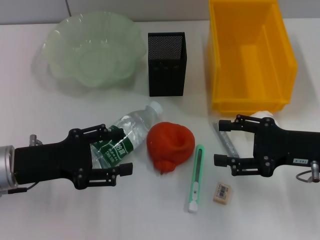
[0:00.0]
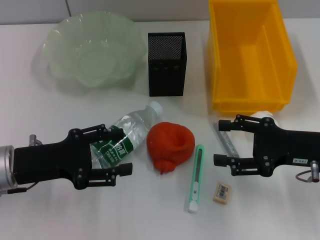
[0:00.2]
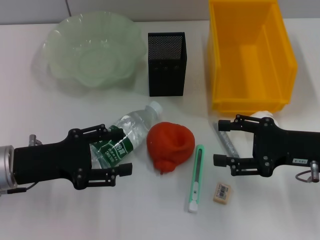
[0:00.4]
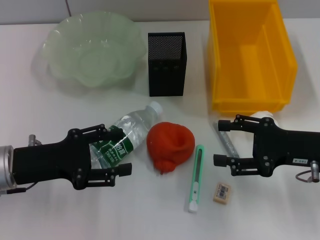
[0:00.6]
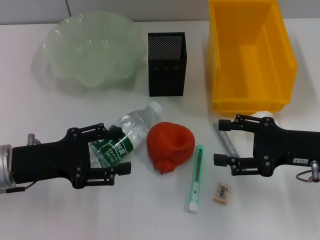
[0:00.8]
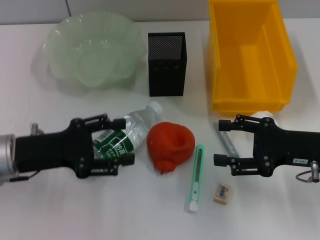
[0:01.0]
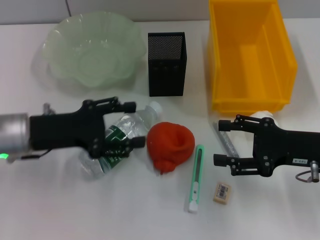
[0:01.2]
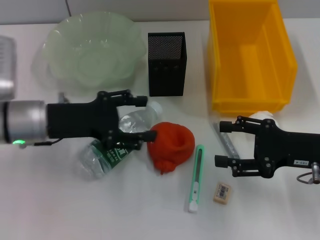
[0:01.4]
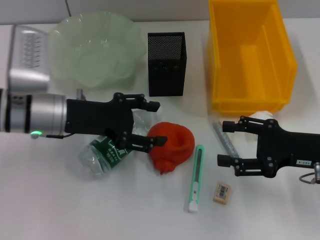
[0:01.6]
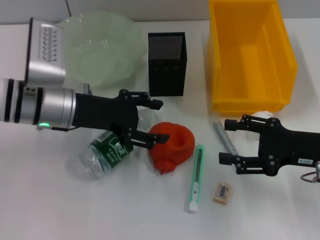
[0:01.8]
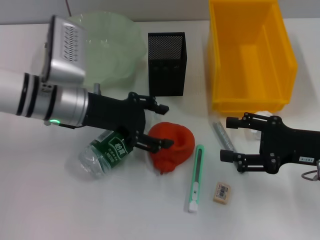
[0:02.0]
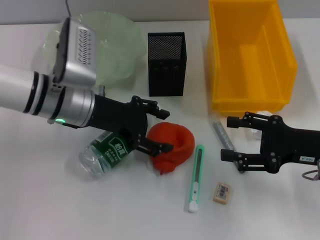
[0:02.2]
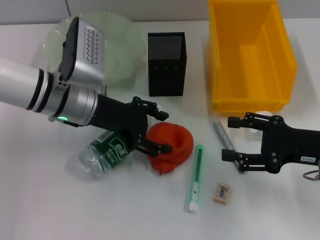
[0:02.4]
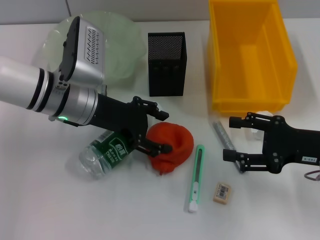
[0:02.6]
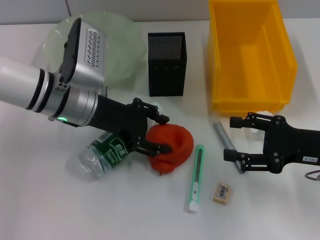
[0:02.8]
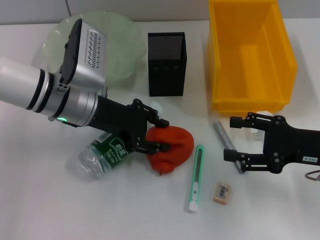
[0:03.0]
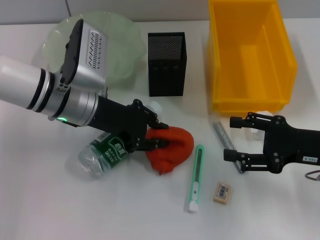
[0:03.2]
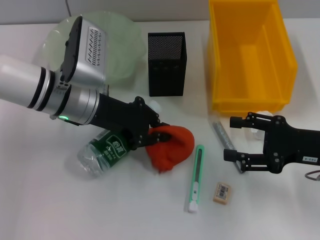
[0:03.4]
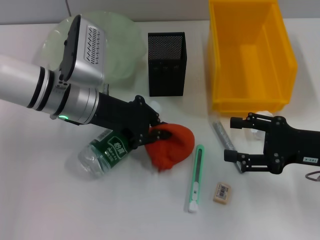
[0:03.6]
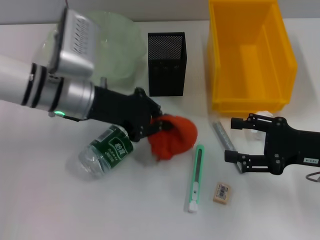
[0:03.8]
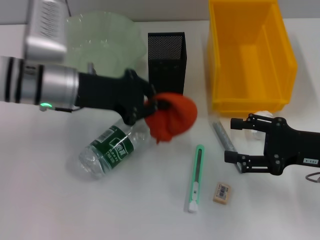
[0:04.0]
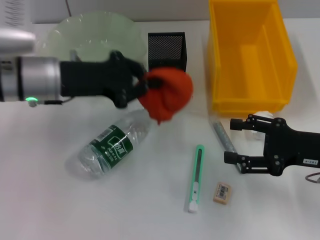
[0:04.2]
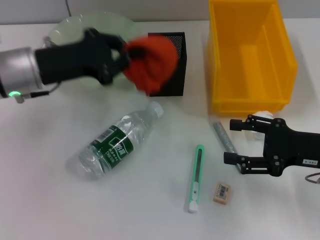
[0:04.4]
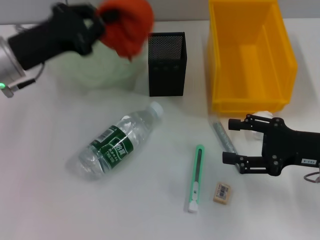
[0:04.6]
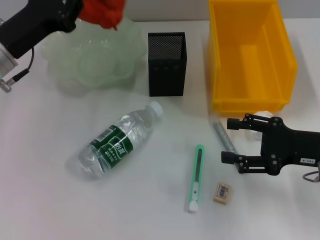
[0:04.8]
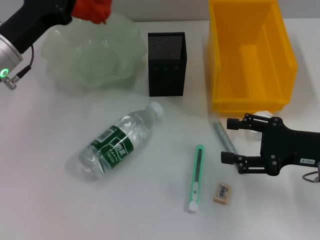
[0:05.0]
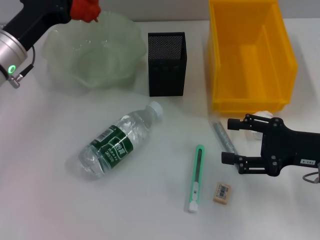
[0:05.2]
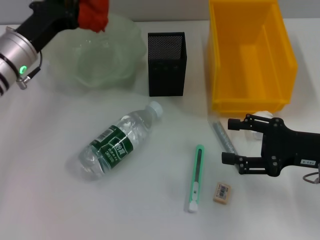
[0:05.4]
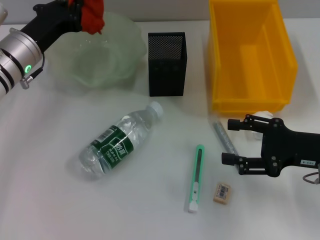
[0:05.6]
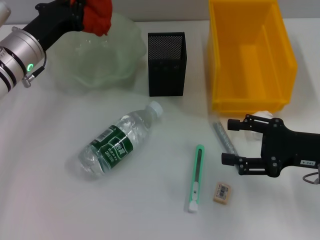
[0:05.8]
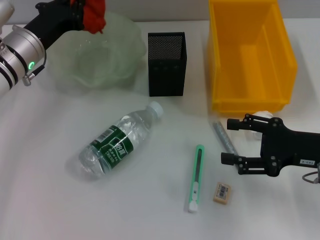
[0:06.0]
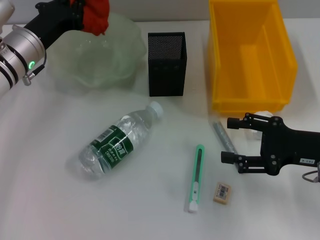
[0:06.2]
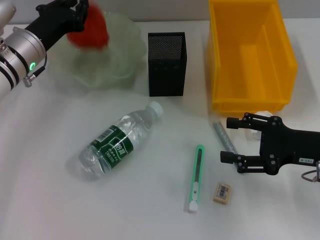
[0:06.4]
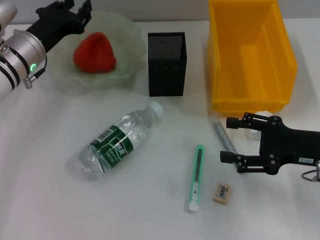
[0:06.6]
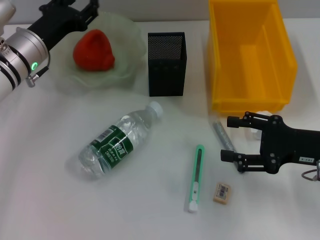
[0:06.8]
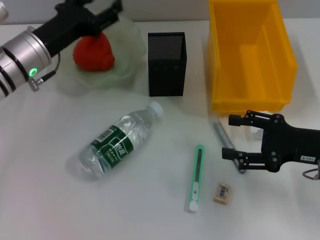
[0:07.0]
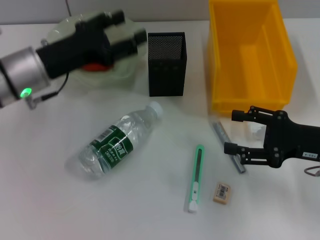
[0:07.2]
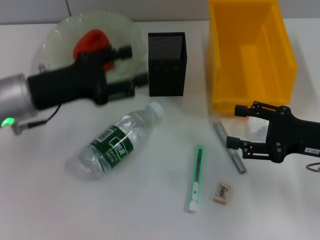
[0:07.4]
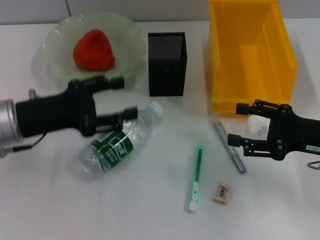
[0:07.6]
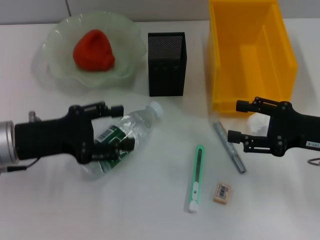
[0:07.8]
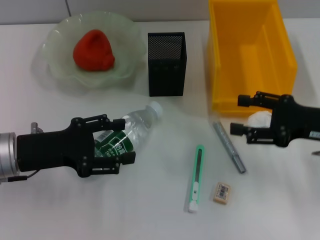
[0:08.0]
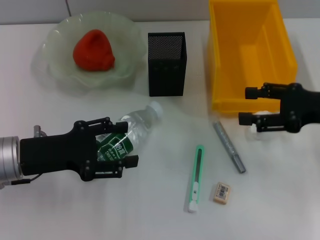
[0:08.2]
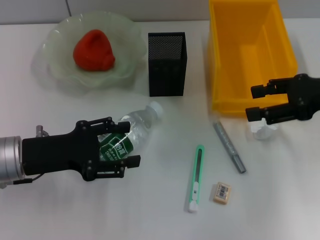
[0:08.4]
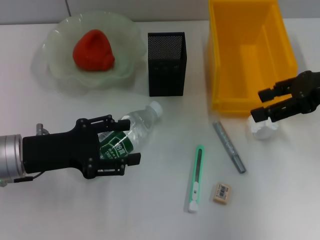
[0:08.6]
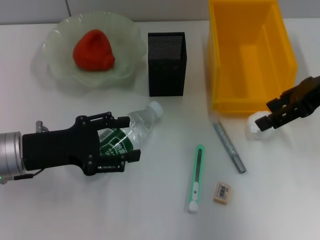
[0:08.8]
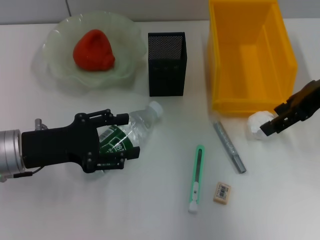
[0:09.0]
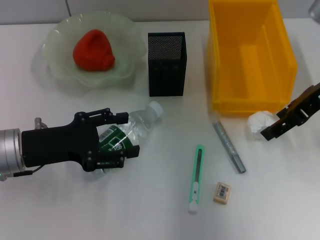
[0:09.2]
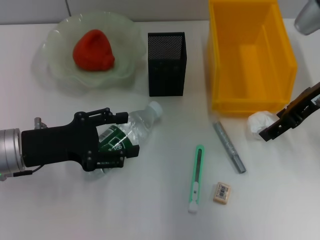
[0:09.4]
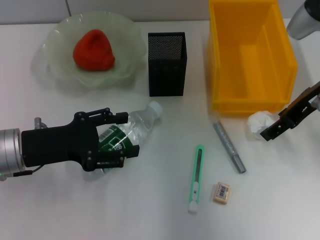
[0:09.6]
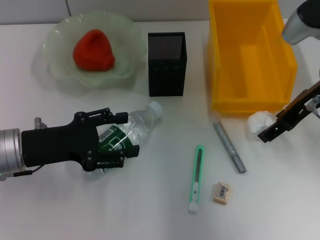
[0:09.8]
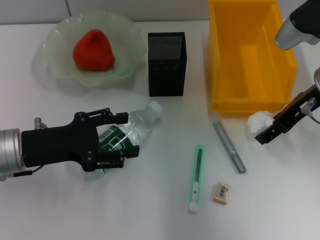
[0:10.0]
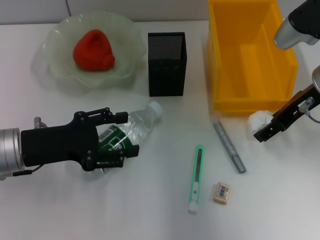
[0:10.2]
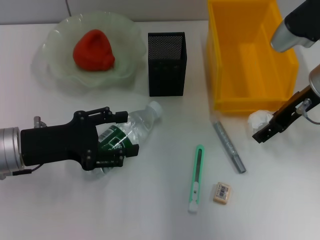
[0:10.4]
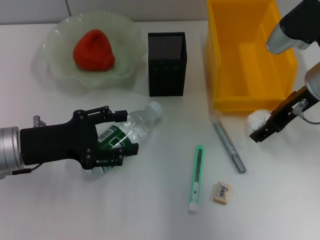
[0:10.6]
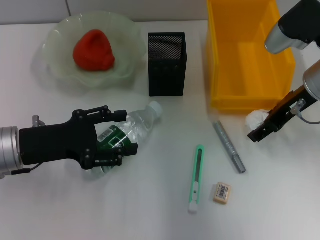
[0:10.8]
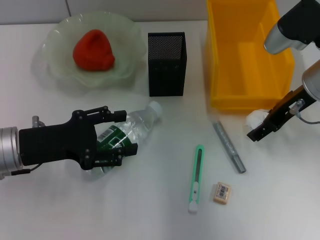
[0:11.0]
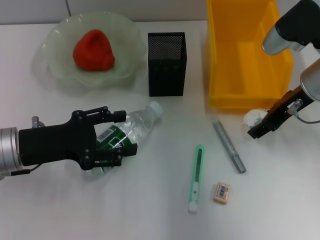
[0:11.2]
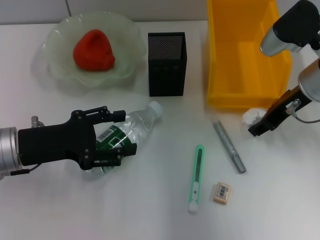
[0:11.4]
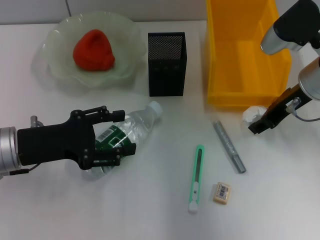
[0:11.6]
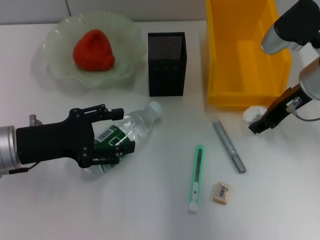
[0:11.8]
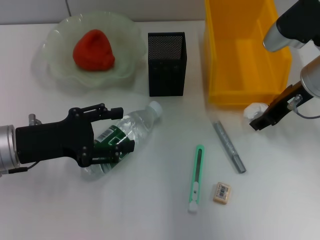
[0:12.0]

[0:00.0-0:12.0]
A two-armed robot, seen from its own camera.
Step, 0:00.0 to 0:03.6: Grab the orange with the left hand.
Step, 0:03.8 to 0:06.6: Place the orange into the fruit bowl with the left hand.
Step, 0:06.8 to 0:11.6: Grab the paper ball with the right hand.
0:00.0 to 0:01.6: The left gripper is displaced forward and to the right by about 10 cm.
0:01.6 to 0:03.0: The left gripper moves roughly 5 cm.
0:03.0 to 0:04.4: The left gripper goes some 5 cm to the left, and closes.
0:04.4 to 0:06.0: The left gripper is displaced forward by roughly 5 cm.
0:06.0 to 0:07.6: The left gripper travels backward by about 10 cm, and opens its fingers.
0:07.6 to 0:09.0: The right gripper heads upward and forward, covering roughly 15 cm.
0:09.0 to 0:10.4: The right gripper shifts by about 5 cm.
0:10.4 to 0:12.0: The right gripper closes up.

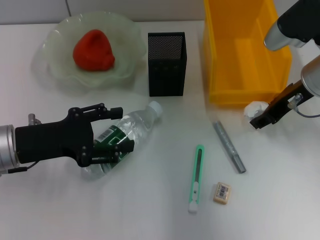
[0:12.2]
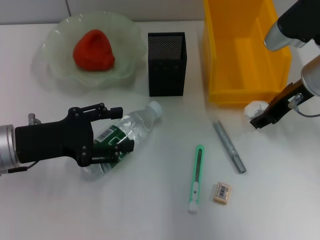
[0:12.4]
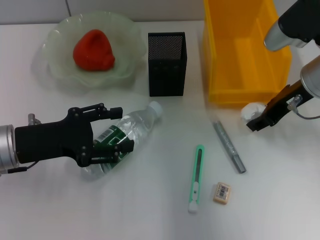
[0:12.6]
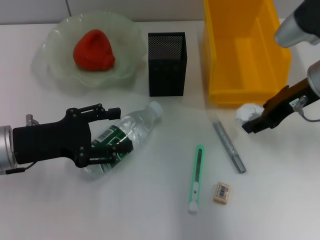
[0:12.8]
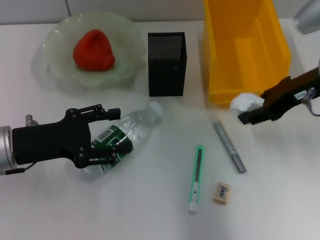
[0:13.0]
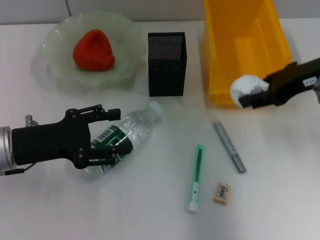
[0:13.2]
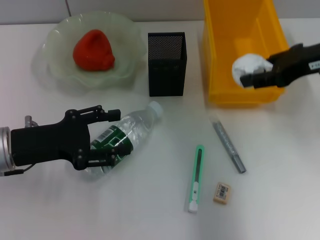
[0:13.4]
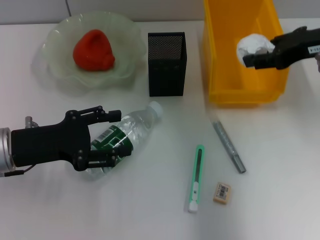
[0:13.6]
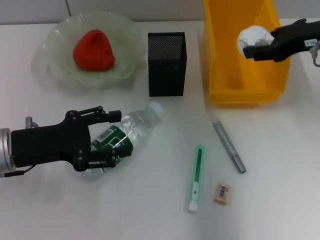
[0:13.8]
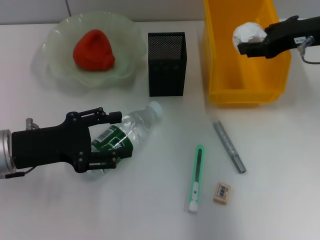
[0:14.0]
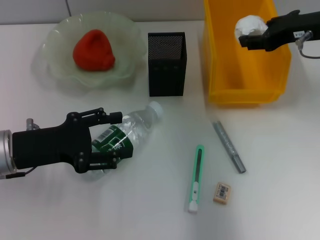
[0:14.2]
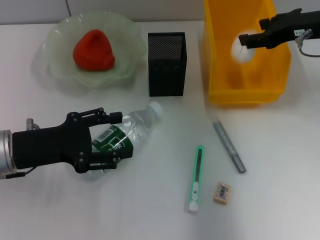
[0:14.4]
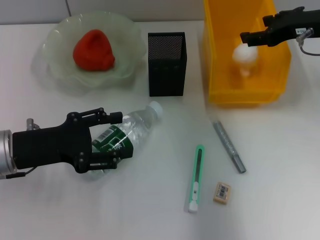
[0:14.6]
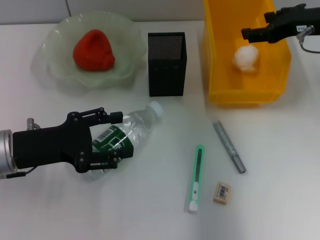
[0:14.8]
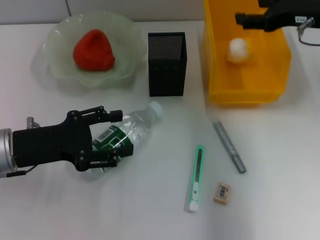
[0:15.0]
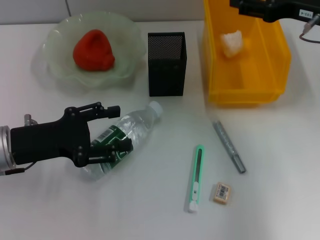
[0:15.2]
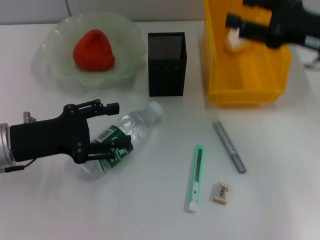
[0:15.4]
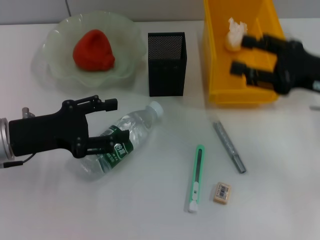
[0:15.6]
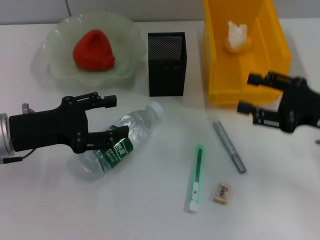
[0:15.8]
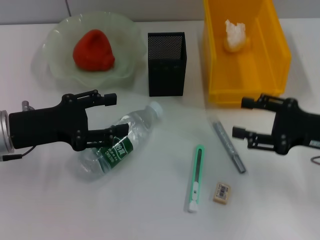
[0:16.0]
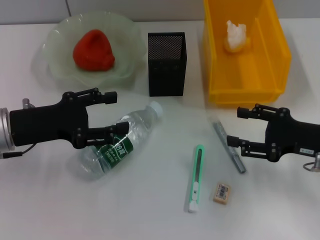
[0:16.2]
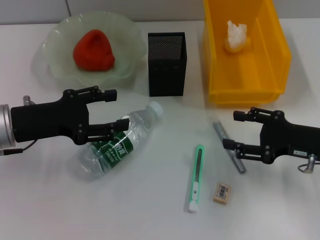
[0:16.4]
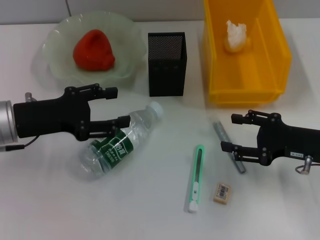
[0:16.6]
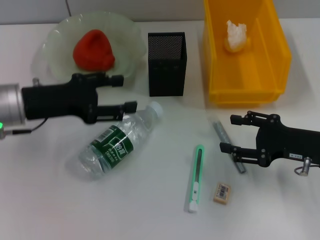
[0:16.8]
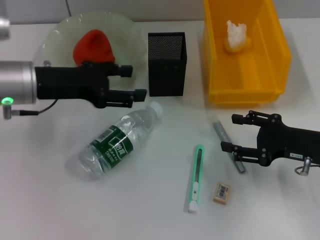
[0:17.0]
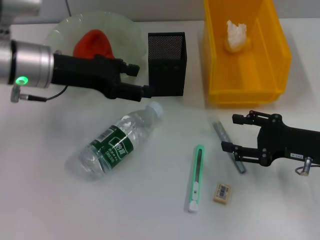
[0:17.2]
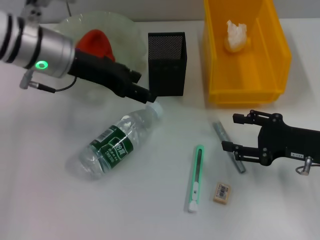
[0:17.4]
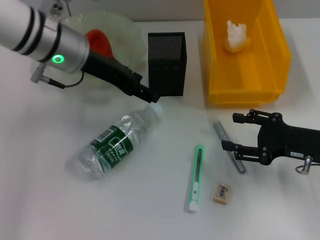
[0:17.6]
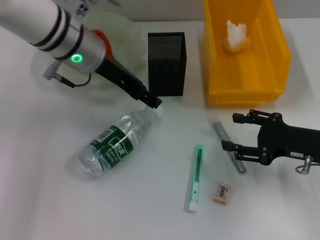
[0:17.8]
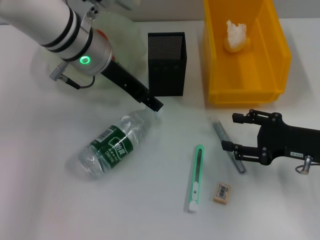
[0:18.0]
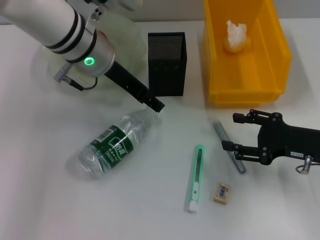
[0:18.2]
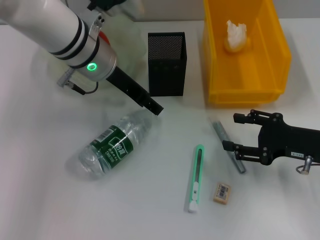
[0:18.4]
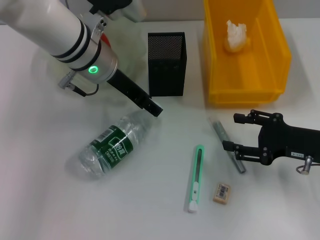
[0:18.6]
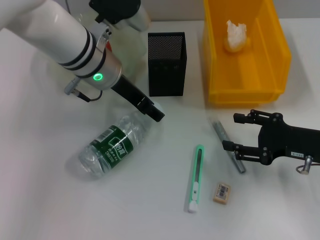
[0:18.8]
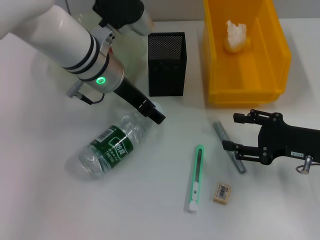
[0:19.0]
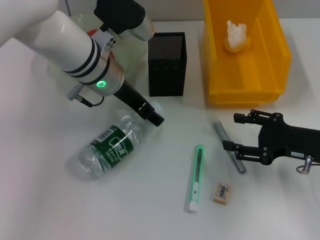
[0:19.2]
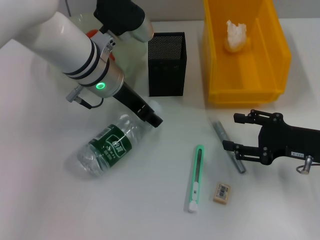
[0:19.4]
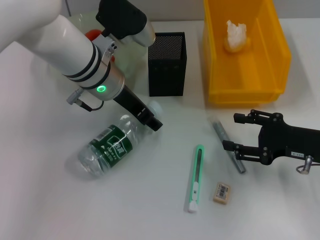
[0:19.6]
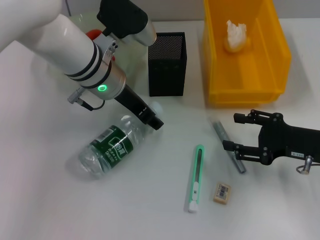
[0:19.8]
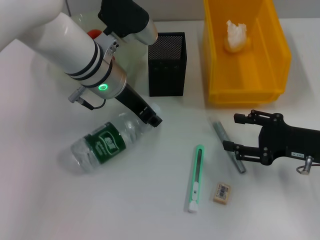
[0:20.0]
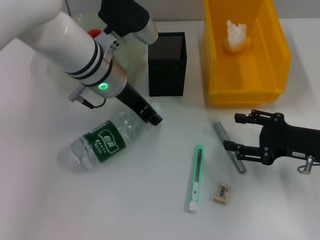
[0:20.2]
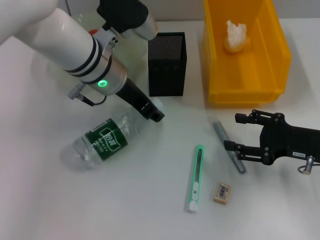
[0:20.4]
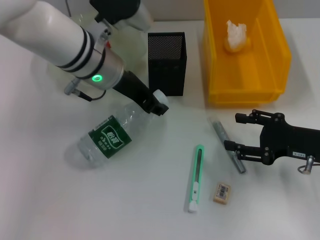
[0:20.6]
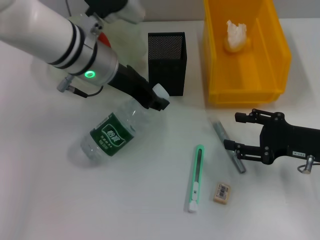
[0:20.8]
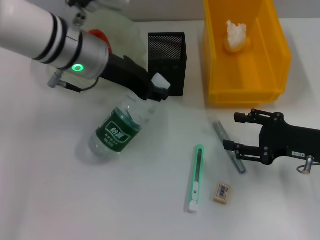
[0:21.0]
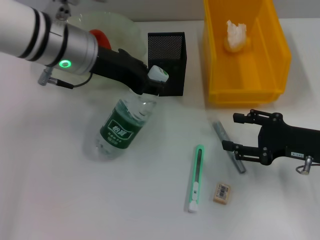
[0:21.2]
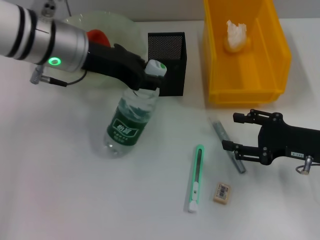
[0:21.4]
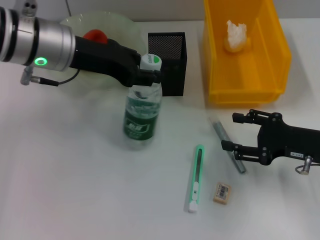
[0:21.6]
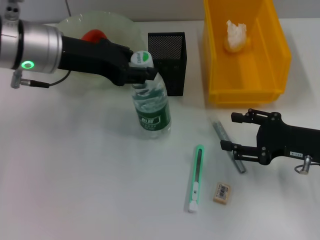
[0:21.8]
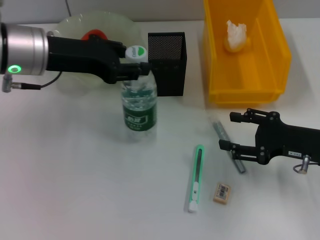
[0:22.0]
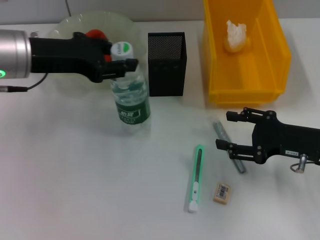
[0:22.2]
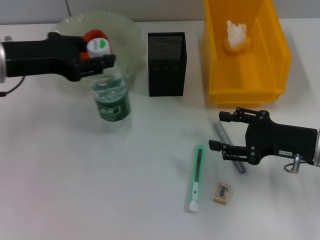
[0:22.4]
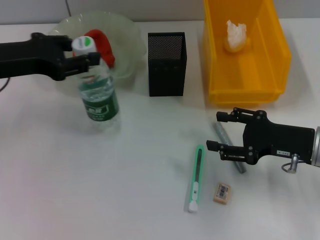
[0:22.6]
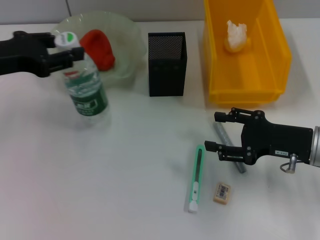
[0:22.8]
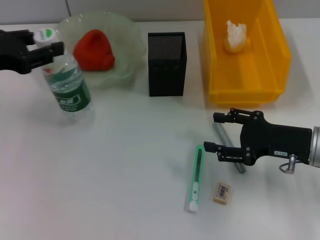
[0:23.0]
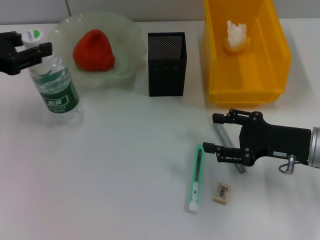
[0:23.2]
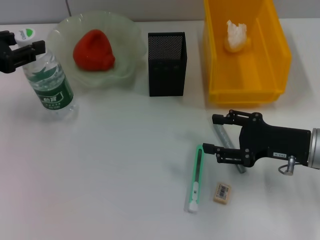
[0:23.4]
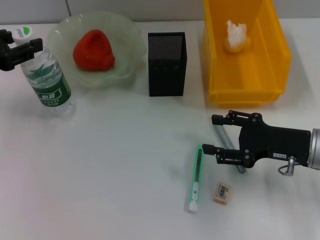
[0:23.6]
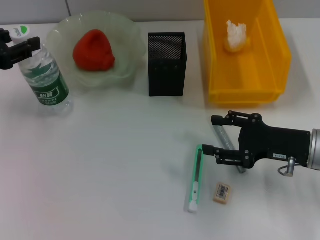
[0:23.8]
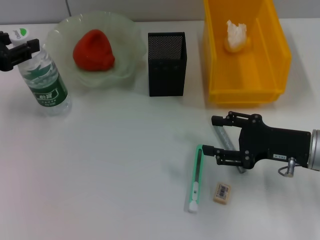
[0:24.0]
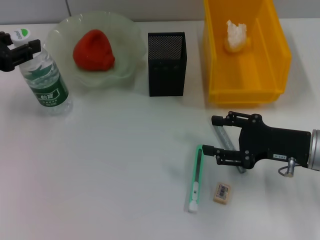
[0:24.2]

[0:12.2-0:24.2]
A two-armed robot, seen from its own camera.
Step, 0:12.2 to 0:14.6: Place the paper ball into the trash can with the right hand.
Step, 0:15.0 to 0:20.2: Grab the water bottle with the left hand.
0:12.2 to 0:13.8: The right gripper heads upward, covering approximately 5 cm.
0:15.2 to 0:16.6: The right gripper moves downward and backward, about 15 cm.
0:16.6 to 0:18.2: The left gripper shifts roughly 20 cm to the right, forward and upward.
0:18.2 to 0:19.8: There are only small adjustments of the grippers.
0:19.8 to 0:21.2: The left gripper is displaced upward by about 5 cm.
0:21.2 to 0:22.6: The left gripper shifts approximately 15 cm to the left.
0:22.6 to 0:24.2: The left gripper shifts some 5 cm to the left.
